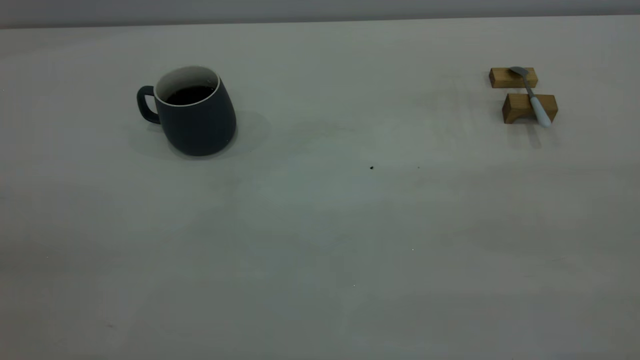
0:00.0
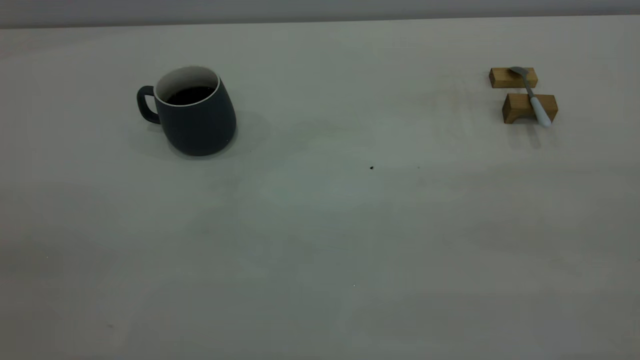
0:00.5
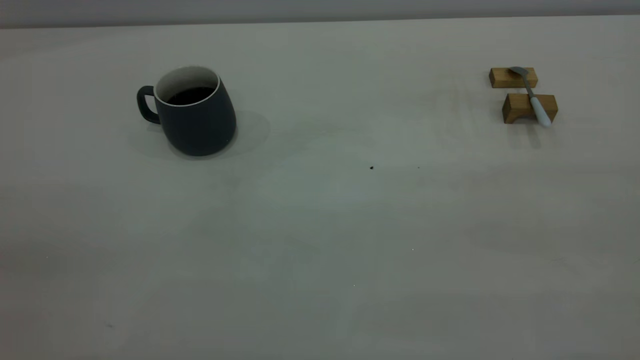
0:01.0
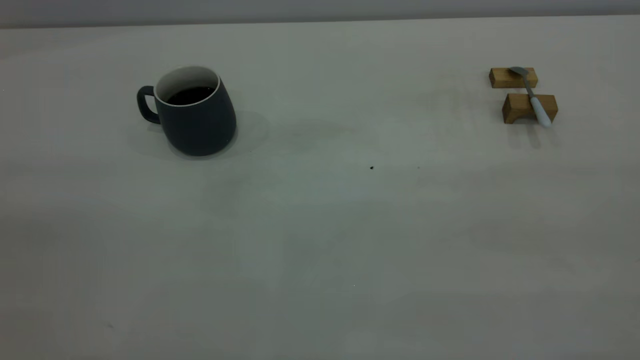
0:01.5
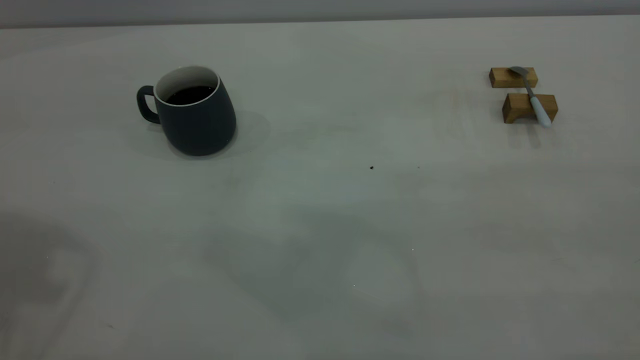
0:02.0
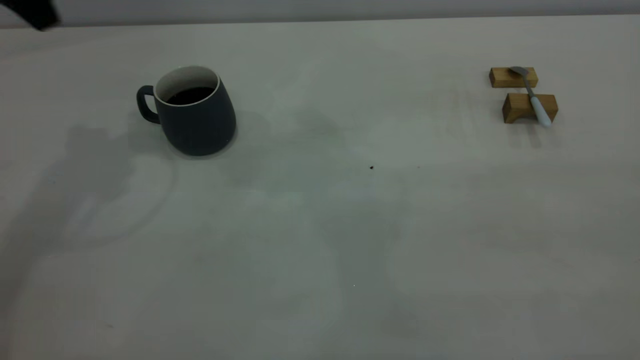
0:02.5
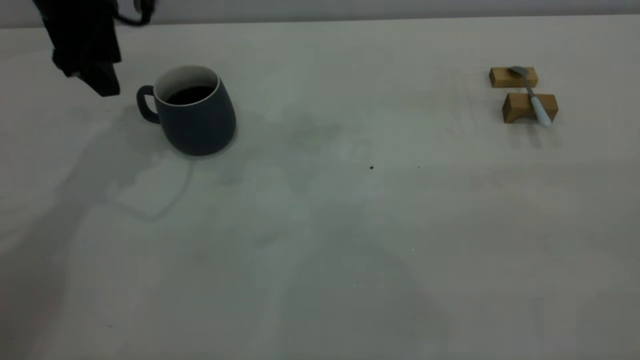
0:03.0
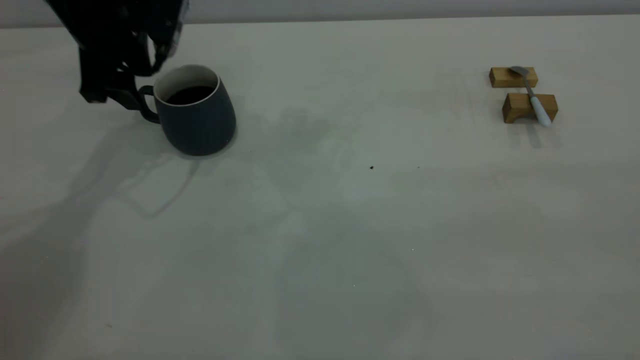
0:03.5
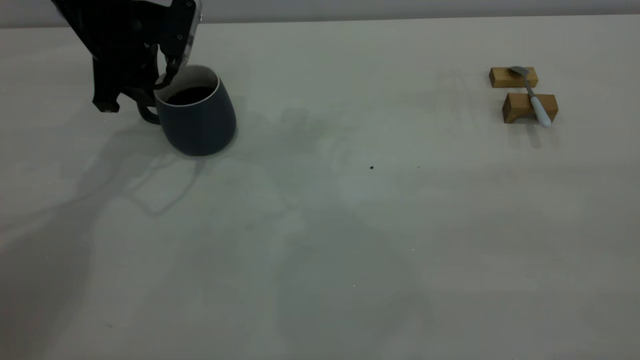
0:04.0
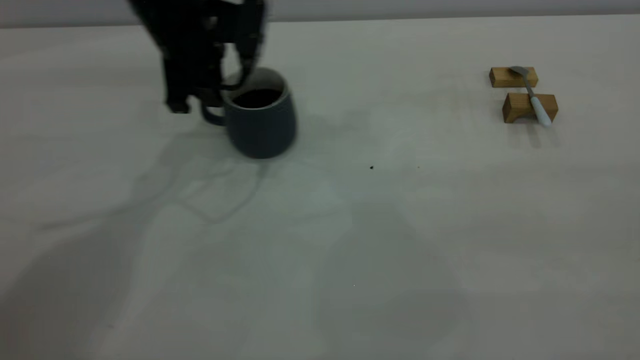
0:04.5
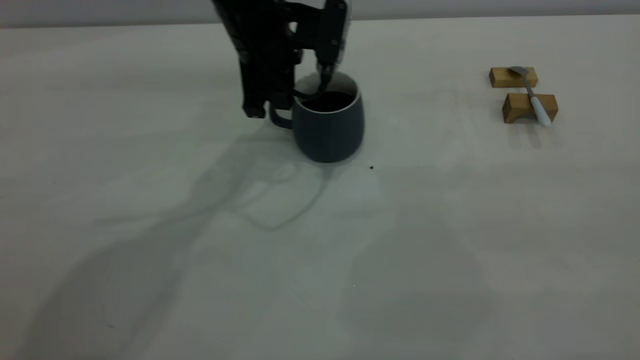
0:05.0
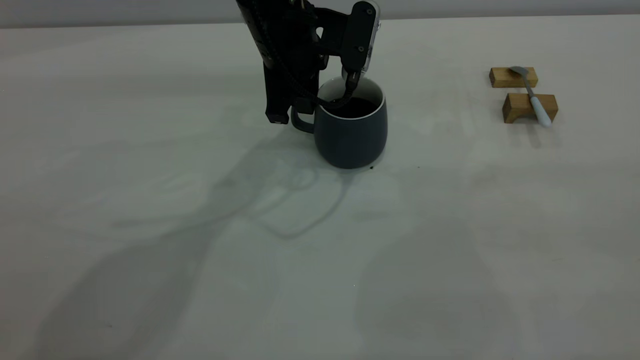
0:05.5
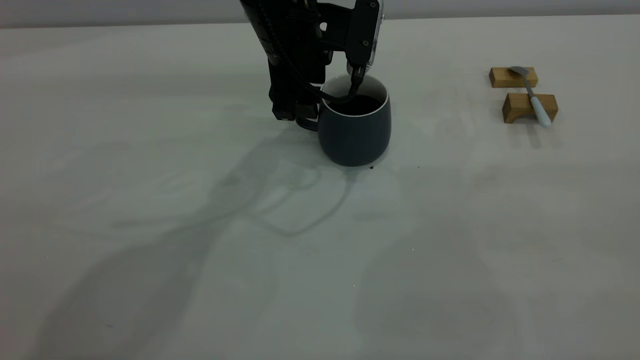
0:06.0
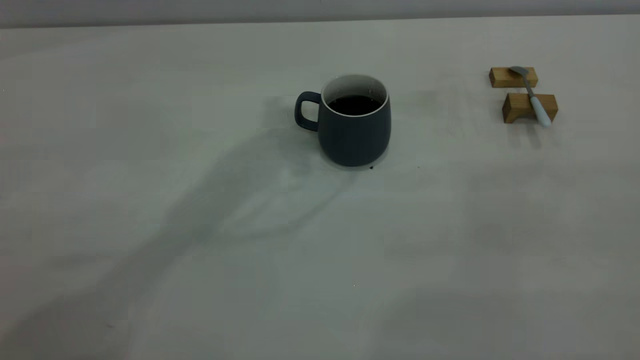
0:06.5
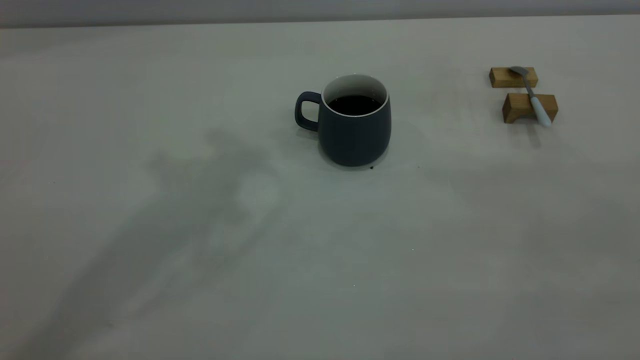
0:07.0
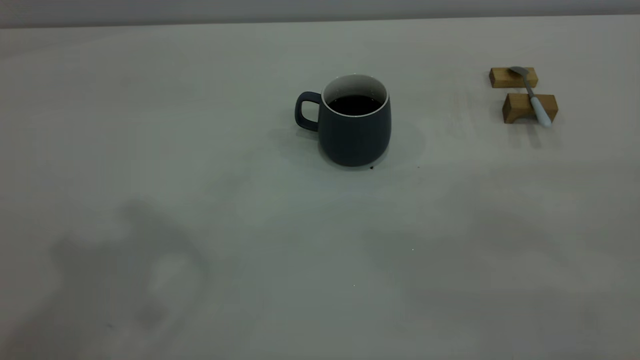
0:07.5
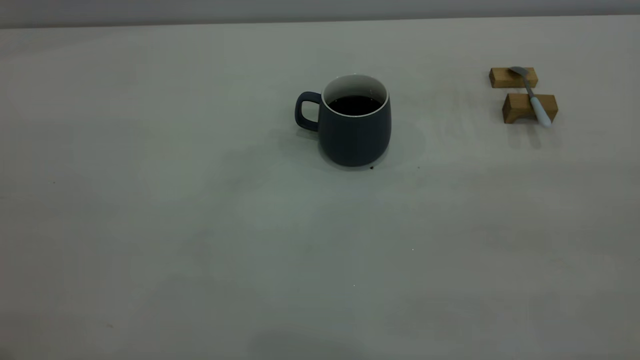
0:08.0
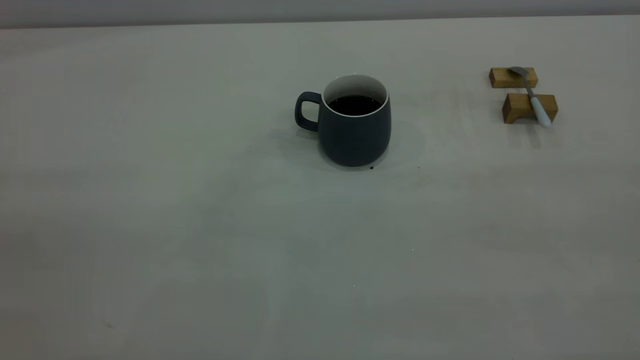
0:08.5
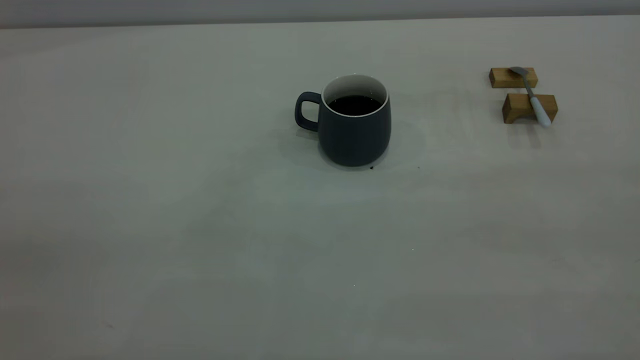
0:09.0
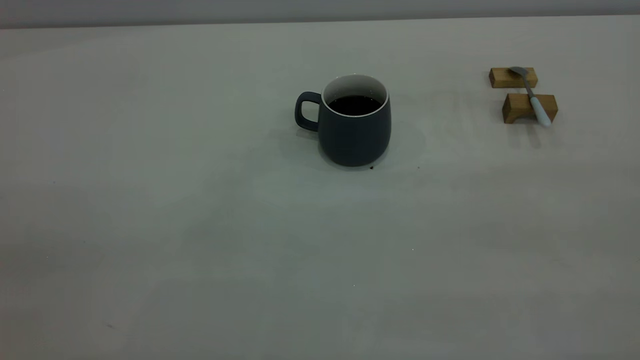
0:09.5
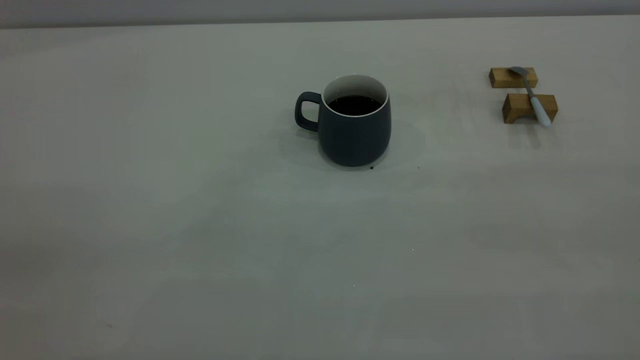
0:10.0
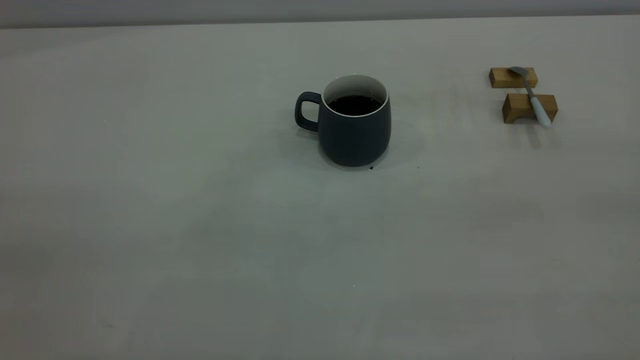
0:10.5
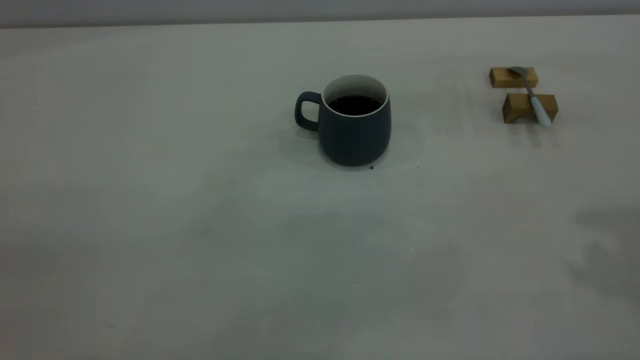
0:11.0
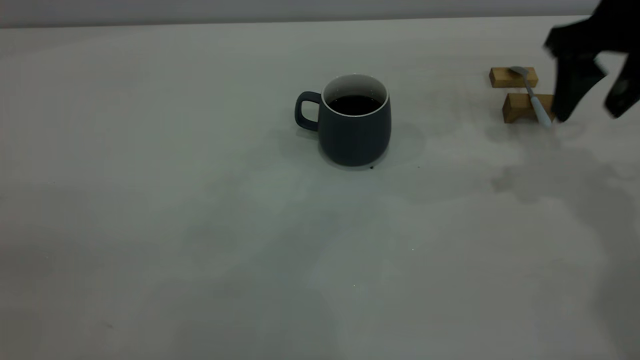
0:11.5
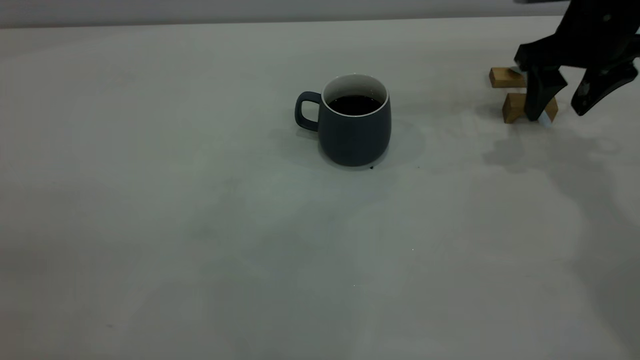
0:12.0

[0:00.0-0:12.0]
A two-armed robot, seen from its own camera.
Step, 0:00.0 to 0:06.0: Move the cup with coffee to the center of view.
0:02.0 to 0:04.0: The left gripper shifts approximately 35 cm downward and forward, and closes.
0:04.0 to 0:06.0: The left gripper heads to the right, covering roughly 20 cm, and opens up.
0:06.0 to 0:08.0: The left gripper heads backward, to the left and upward, covering approximately 50 cm, and closes.
0:10.0 to 0:12.0: The right gripper travels forward and downward by about 50 cm, and opens up.

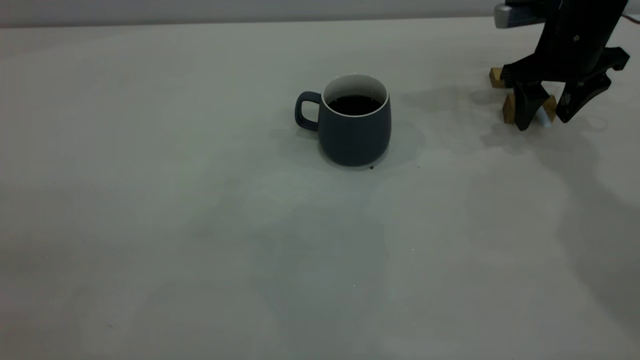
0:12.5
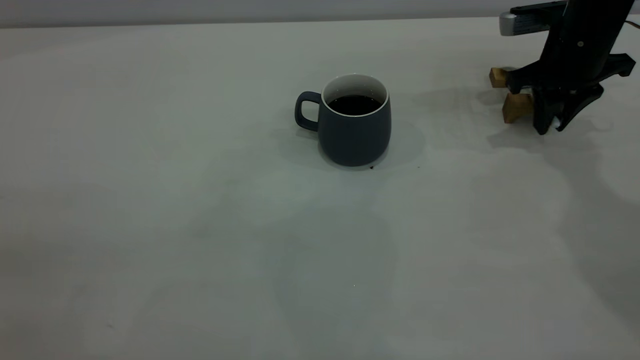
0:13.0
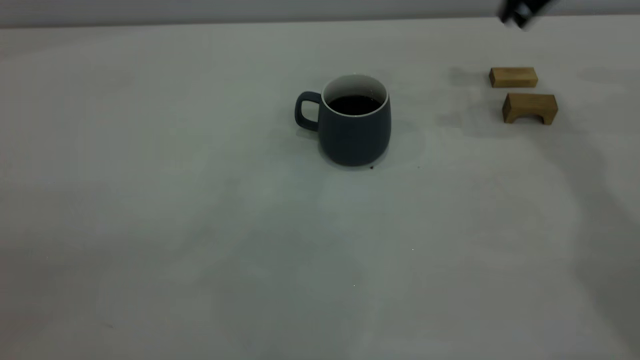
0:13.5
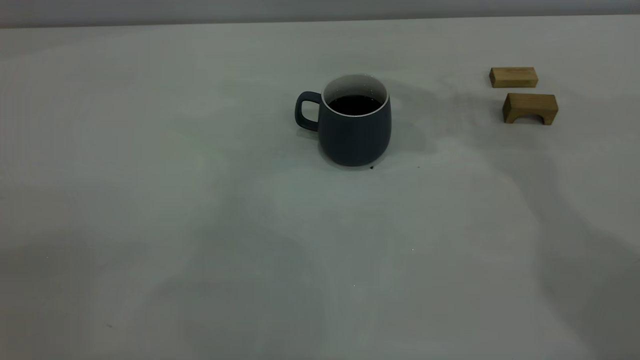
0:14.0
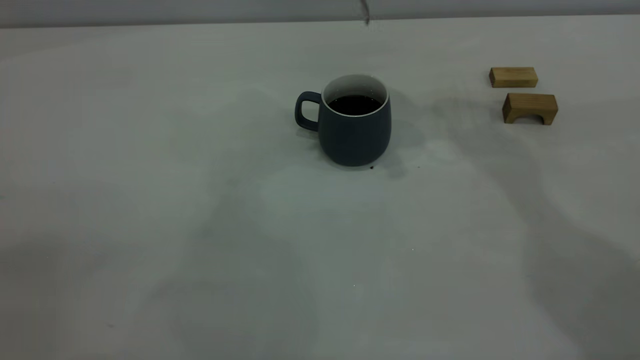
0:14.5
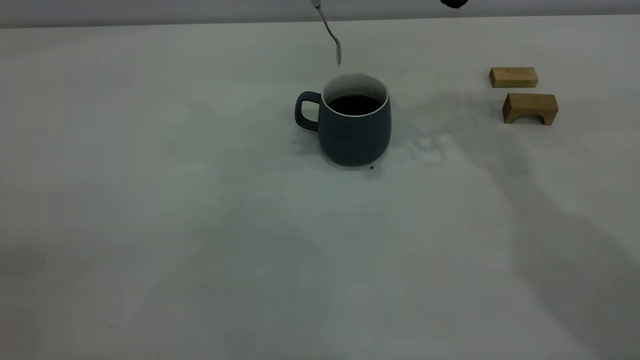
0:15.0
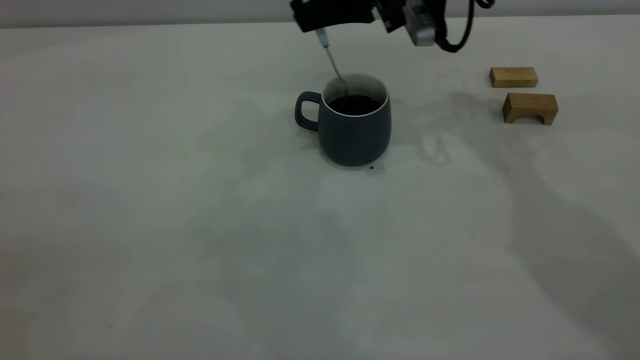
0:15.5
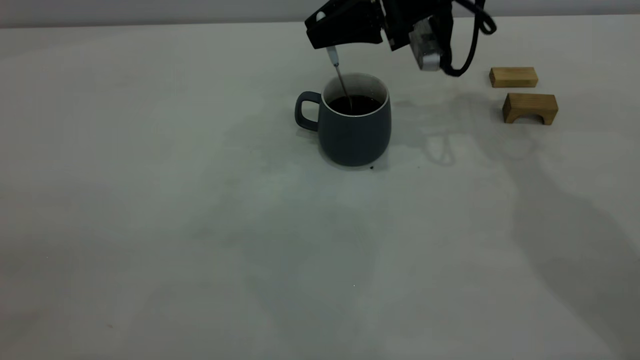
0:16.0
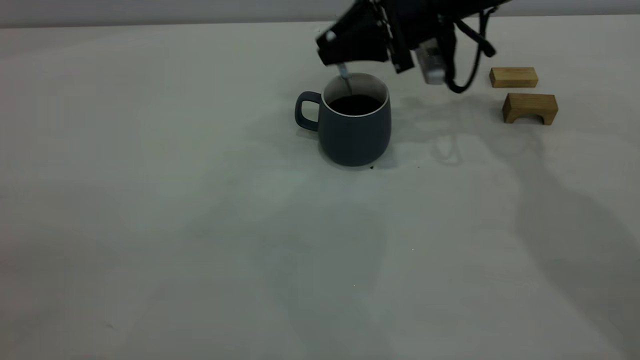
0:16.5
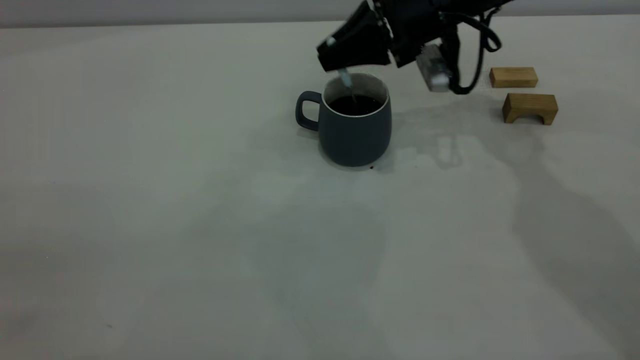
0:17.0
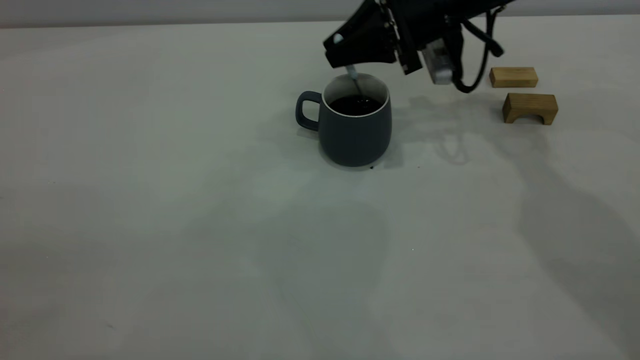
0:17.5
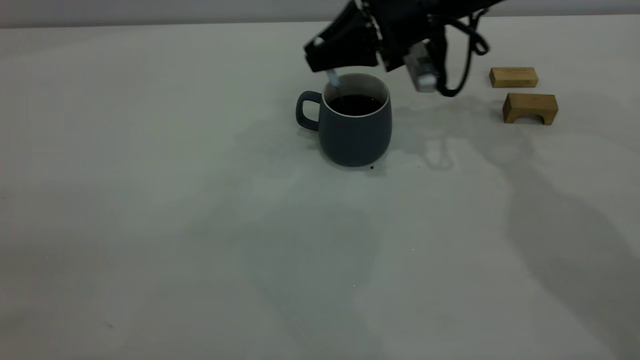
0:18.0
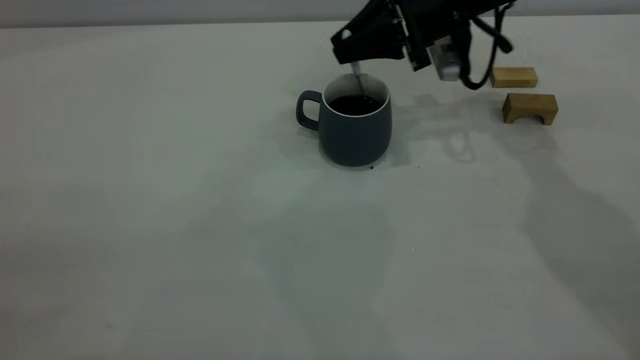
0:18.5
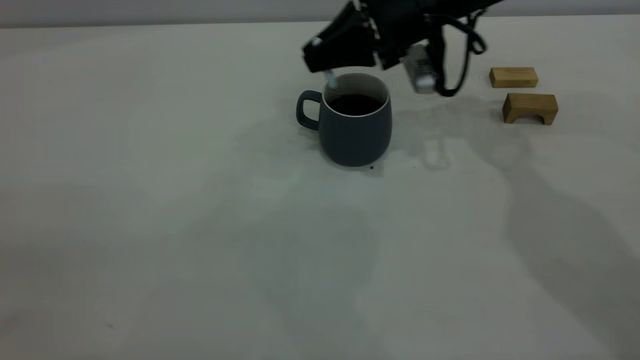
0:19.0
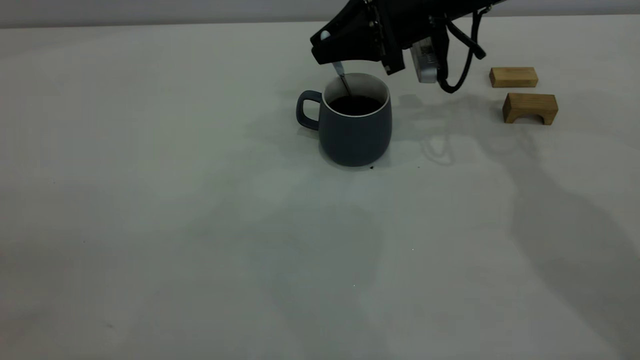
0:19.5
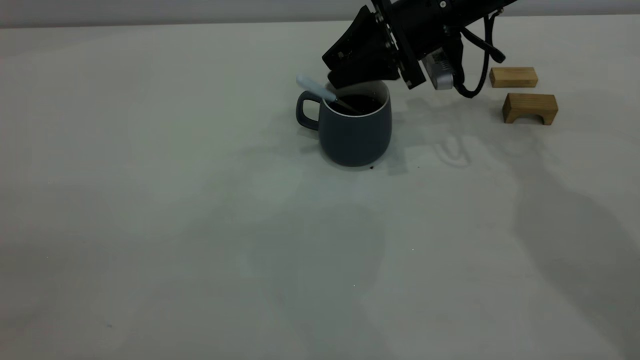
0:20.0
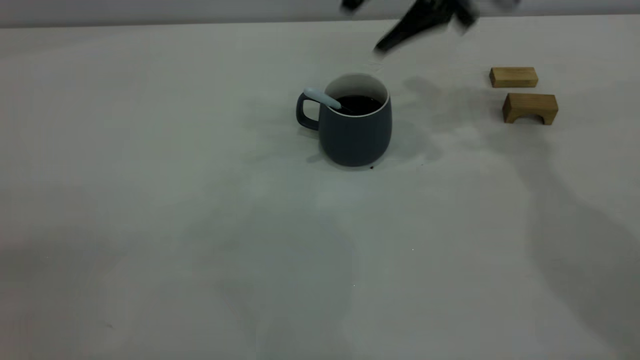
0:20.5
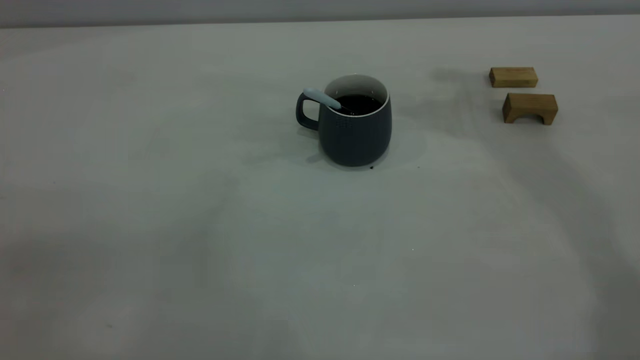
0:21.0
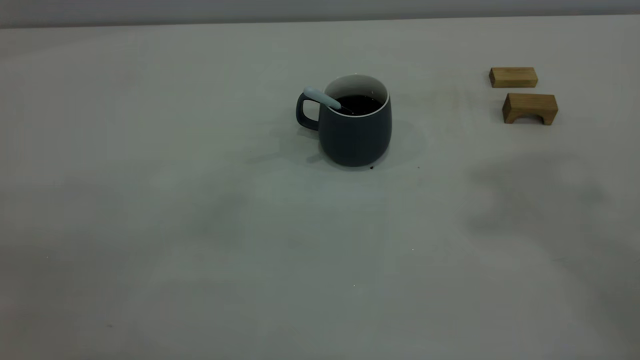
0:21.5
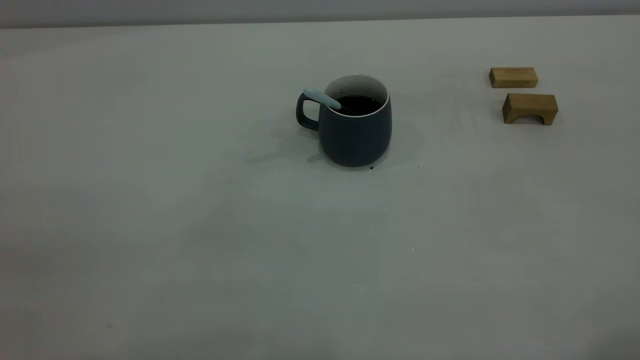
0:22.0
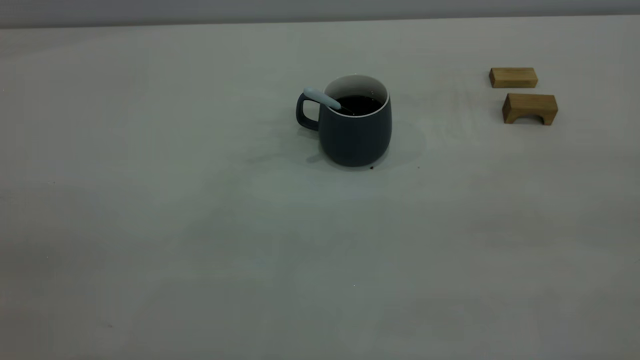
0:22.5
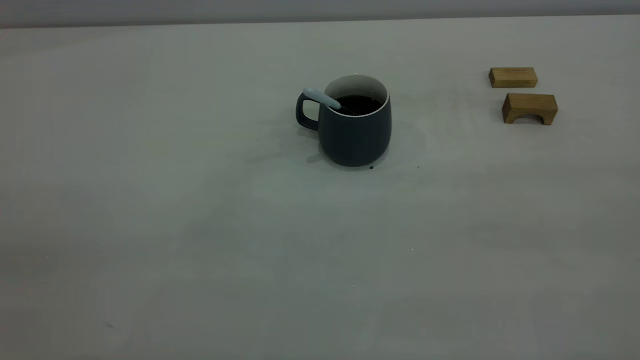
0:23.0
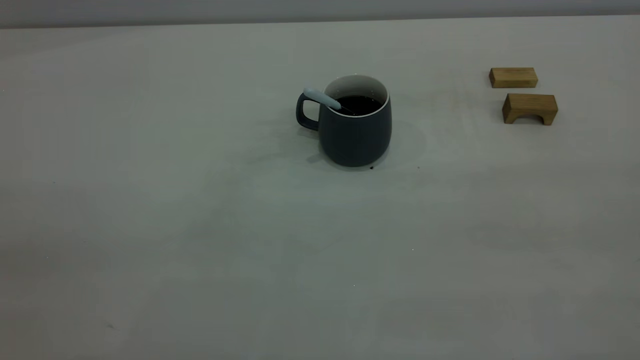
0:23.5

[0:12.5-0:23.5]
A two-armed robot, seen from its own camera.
Step, 0:13.5 to 0:20.0: Stir the coffee in the cup.
0:12.5 to 0:14.5: The right gripper travels upward and to the left by approximately 25 cm, and closes.
0:14.5 to 0:16.0: The right gripper travels downward by roughly 10 cm.
0:16.0 to 0:18.0: The grippers stay close to where they were, moving slightly.
0:18.0 to 0:20.0: The right gripper opens.
0:20.0 to 0:21.5: The right gripper heads upward and backward, covering roughly 50 cm, and closes.
